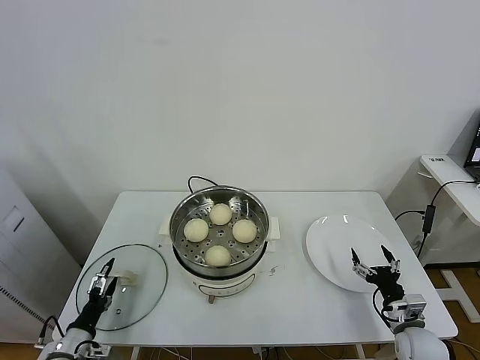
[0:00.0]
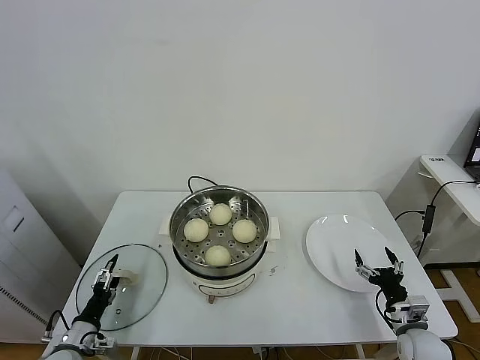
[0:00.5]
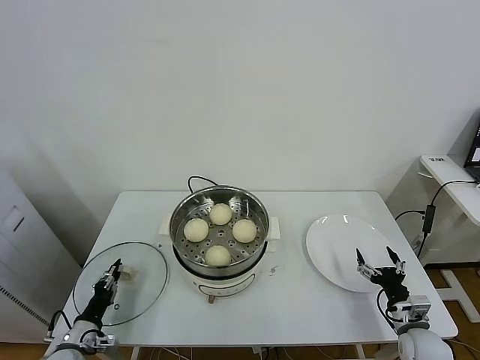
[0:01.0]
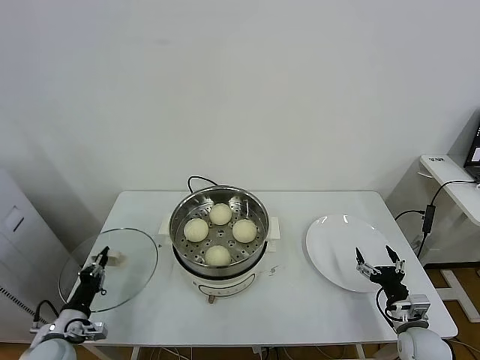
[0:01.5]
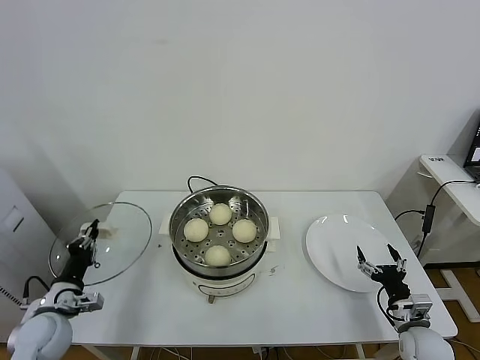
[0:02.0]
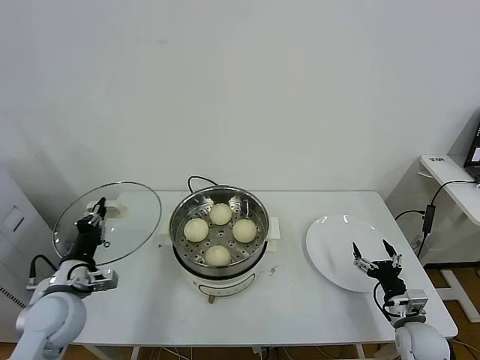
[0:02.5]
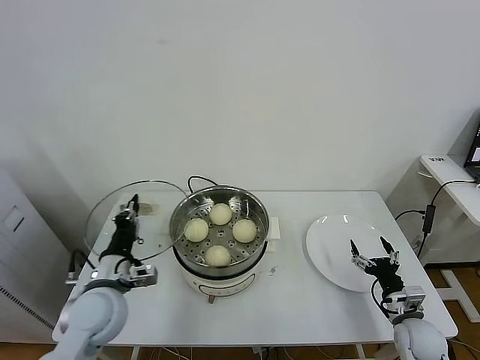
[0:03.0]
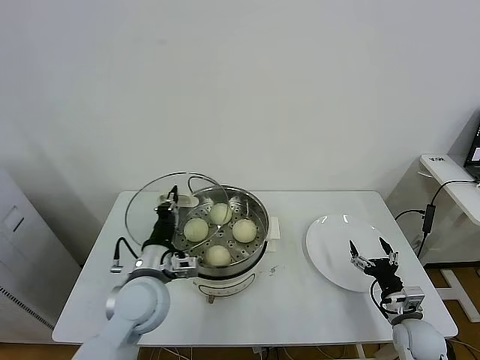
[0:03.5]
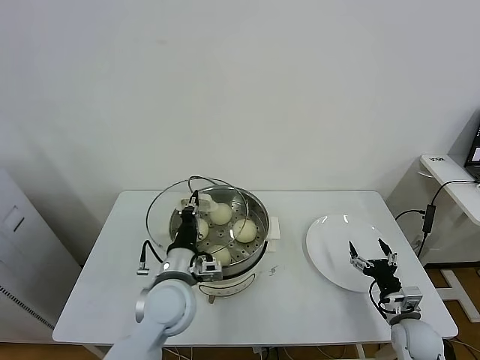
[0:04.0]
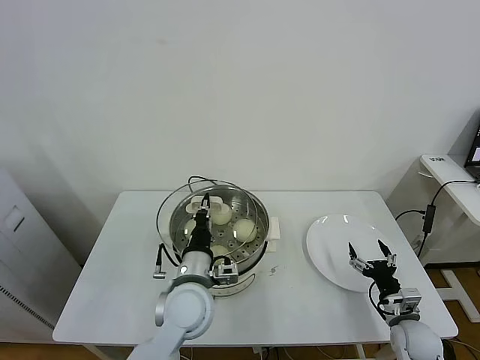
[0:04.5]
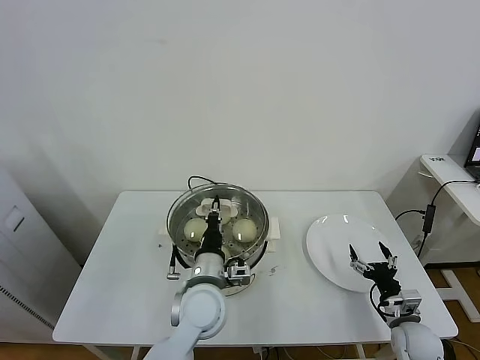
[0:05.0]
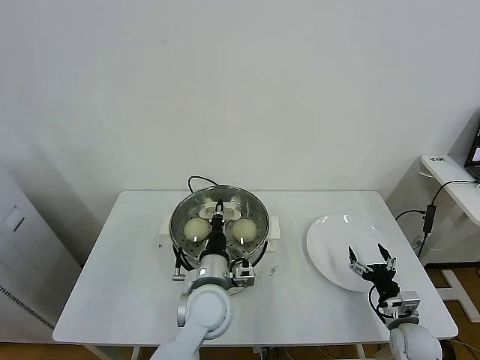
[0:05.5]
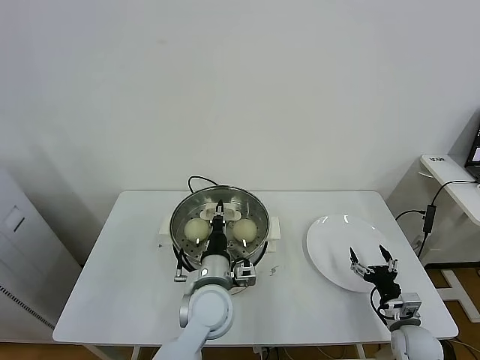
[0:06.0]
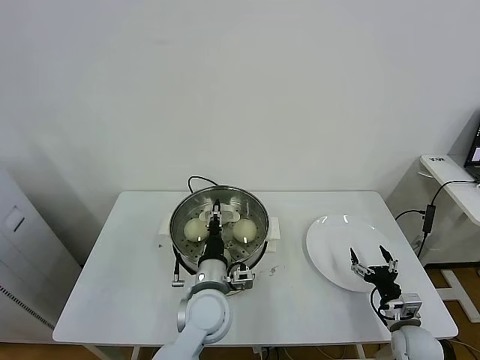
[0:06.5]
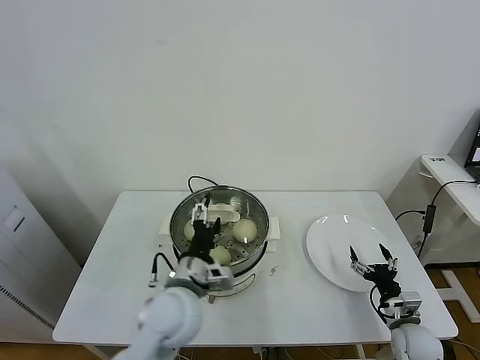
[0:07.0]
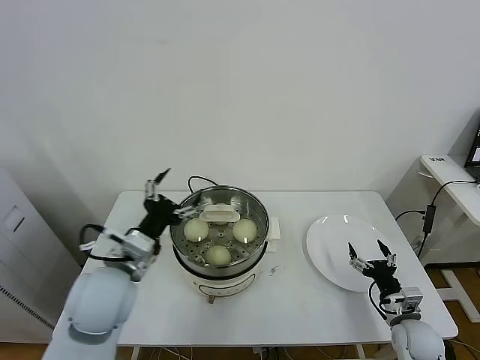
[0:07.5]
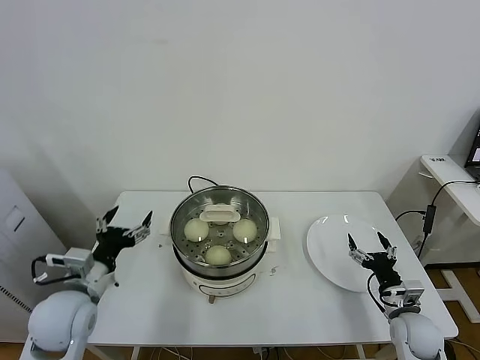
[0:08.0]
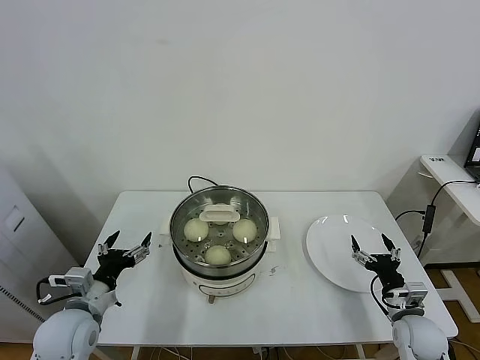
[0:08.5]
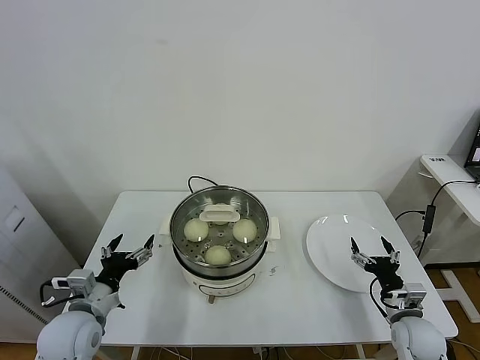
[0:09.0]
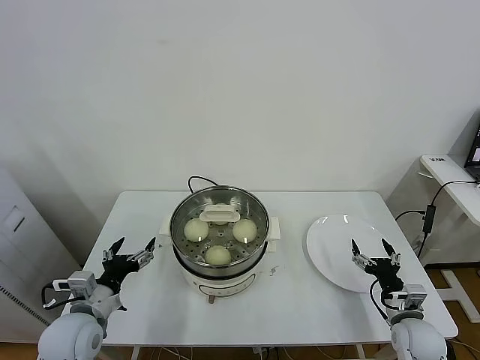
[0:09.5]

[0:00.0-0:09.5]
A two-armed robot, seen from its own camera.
Task of the whole recording: take steamed baozi put them in steamer.
Step, 0:01.5 to 0:07.0: Place the pot lid on the steamer with left gripper.
0:00.0 to 0:02.0: The left gripper heads upward and forward, covering roughly 10 cm, and closes its fingers.
0:02.0 to 0:04.0: The left gripper travels to the right by some 25 cm.
0:04.0 to 0:05.5: The left gripper is displaced to the right by about 5 cm.
0:05.5 to 0:07.5: The left gripper heads to the left and upward, covering approximately 20 cm, and opens its fingers.
0:07.5 to 0:09.5: The left gripper is displaced downward and to the left by roughly 15 cm.

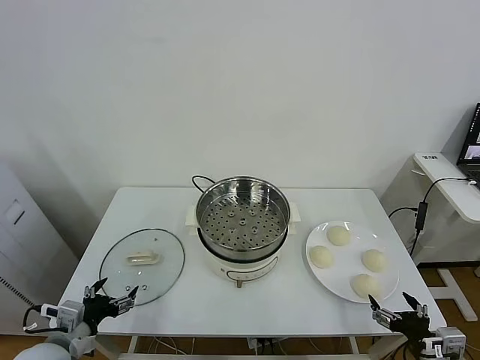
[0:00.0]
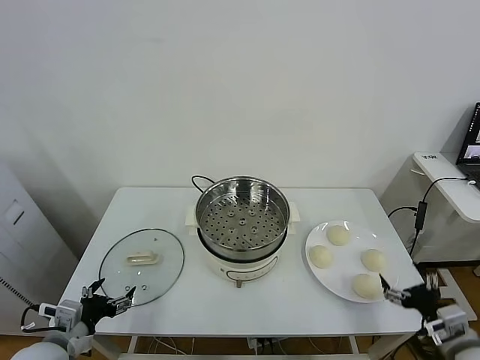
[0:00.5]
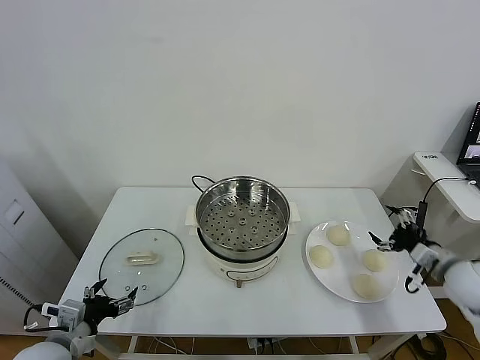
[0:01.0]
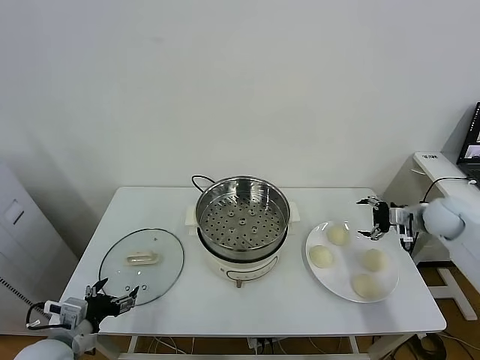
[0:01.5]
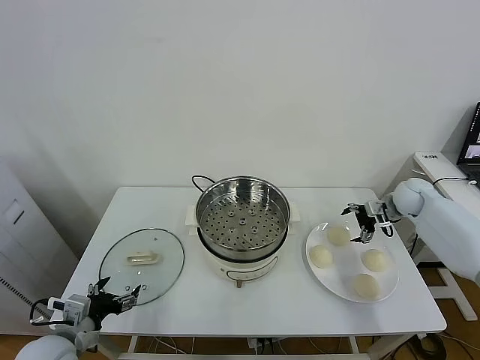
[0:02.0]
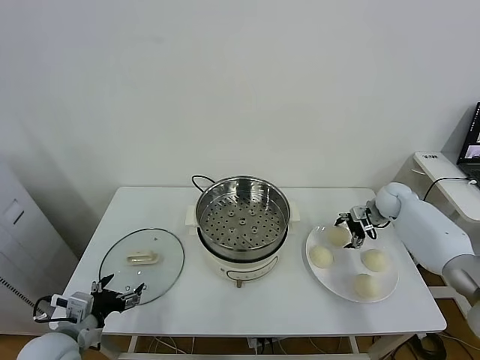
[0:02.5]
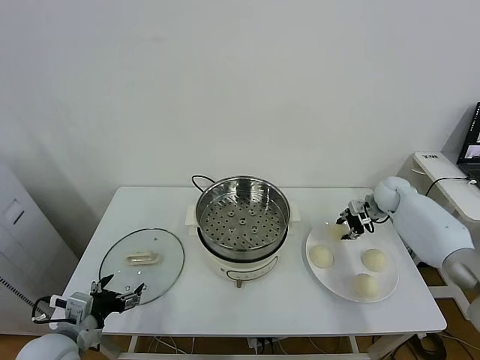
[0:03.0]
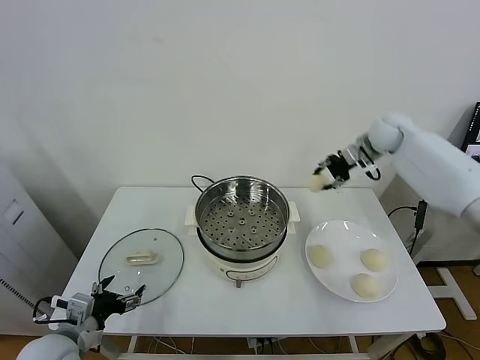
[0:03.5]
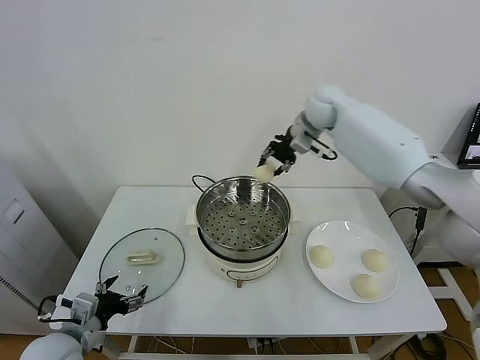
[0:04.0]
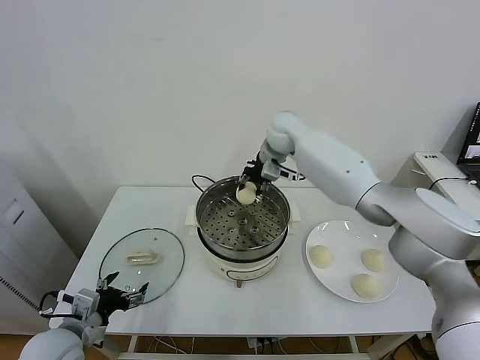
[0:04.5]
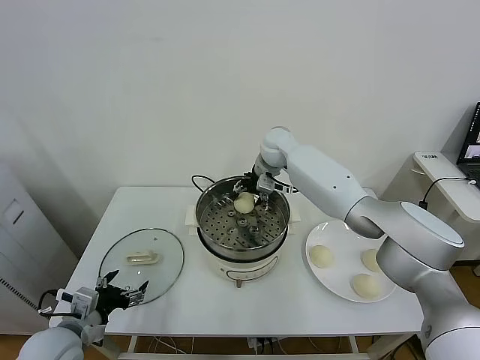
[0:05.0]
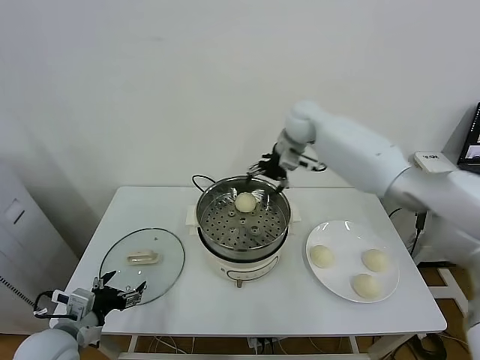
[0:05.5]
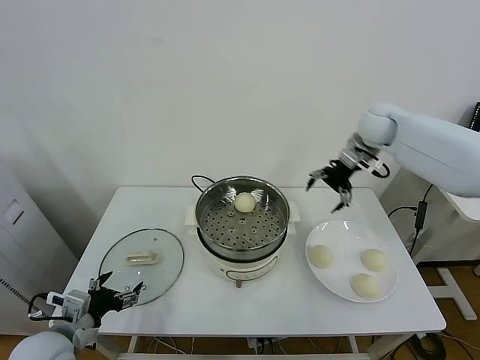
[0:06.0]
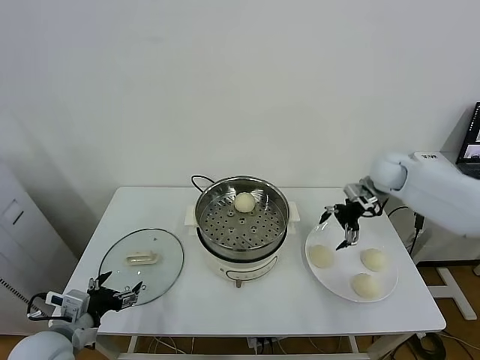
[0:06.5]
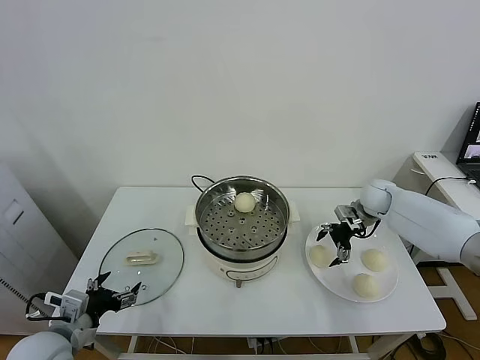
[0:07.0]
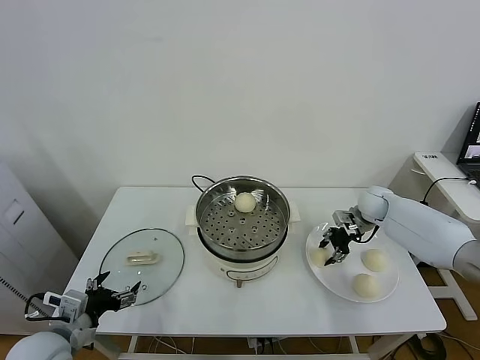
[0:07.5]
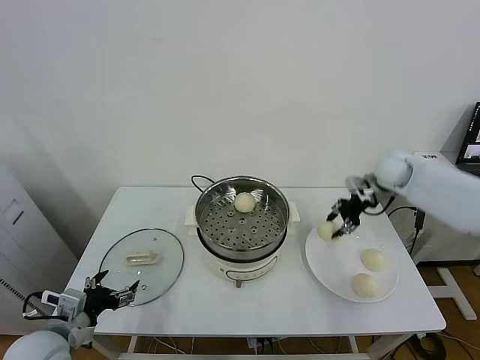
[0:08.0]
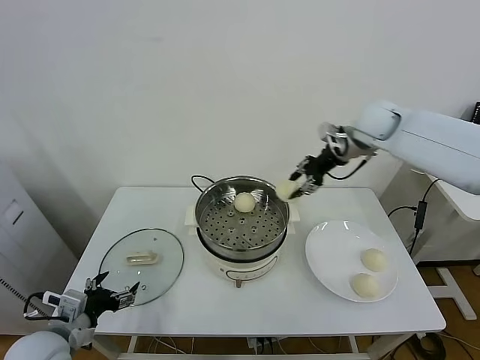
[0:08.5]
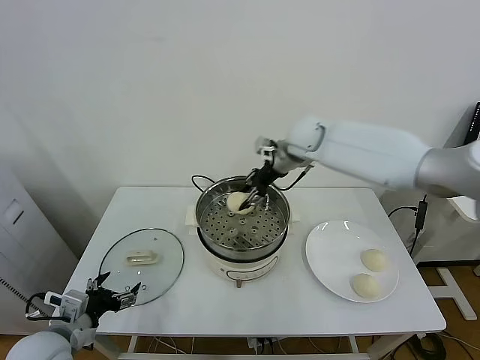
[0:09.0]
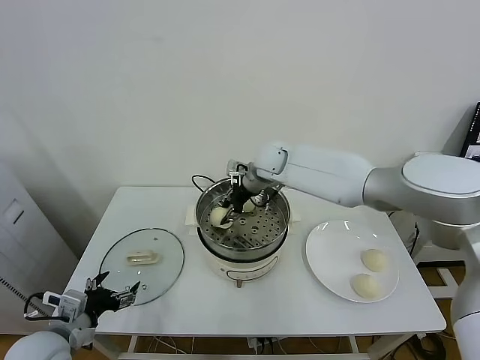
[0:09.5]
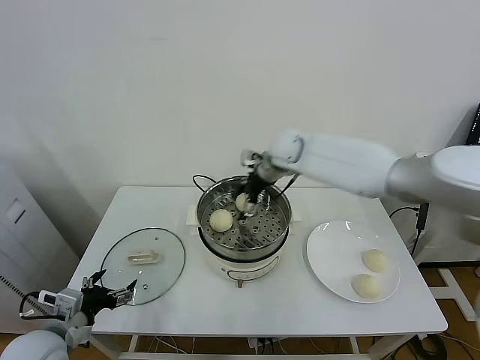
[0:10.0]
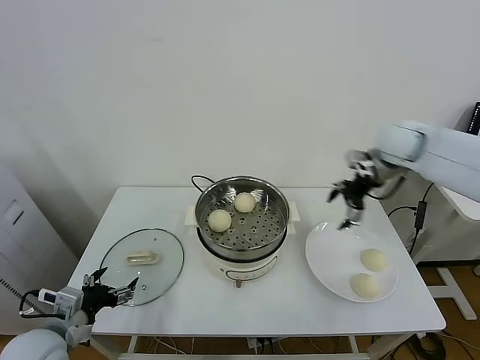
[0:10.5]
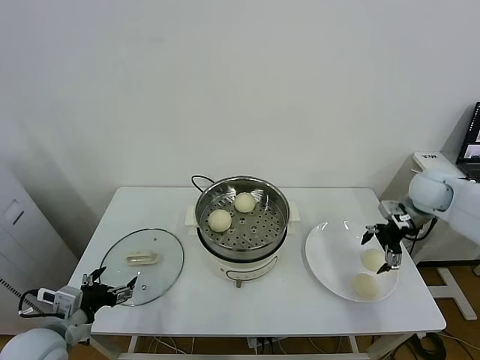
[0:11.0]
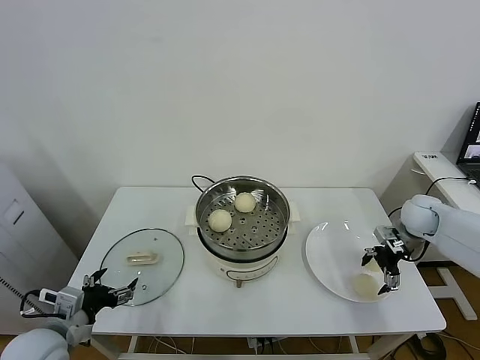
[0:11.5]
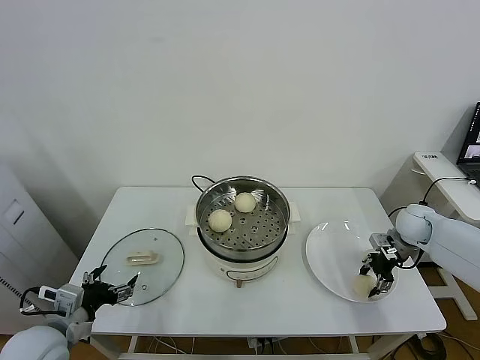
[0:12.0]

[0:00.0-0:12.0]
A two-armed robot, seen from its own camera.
Task of the whole recording: take steamed baozi put them in steamer.
Step, 0:00.0 to 0:02.5: Grasp the baozi in the plate with right gripper.
Step, 0:03.0 to 0:05.0: Place the baozi on the steamer with right gripper.
Step, 0:05.5 to 0:07.5: Grasp the baozi in the plate with right gripper.
Step, 0:08.0 to 0:10.0: Place the baozi on the steamer with right gripper.
Step, 0:10.5 to 0:11.5: Grasp the baozi in the plate with right gripper.
0:02.0 to 0:04.0: The right gripper is displaced to the left and upward by approximately 35 cm, and closes its fingers.
0:04.0 to 0:06.0: The right gripper is displaced to the right by approximately 15 cm, and opens.
0:06.0 to 0:08.0: The right gripper travels downward and back again, roughly 20 cm each way, and closes.
0:08.0 to 0:10.0: The right gripper heads to the left, covering some 20 cm, and opens up.
0:10.0 to 0:12.0: The right gripper goes some 35 cm to the right and downward, and closes its fingers.

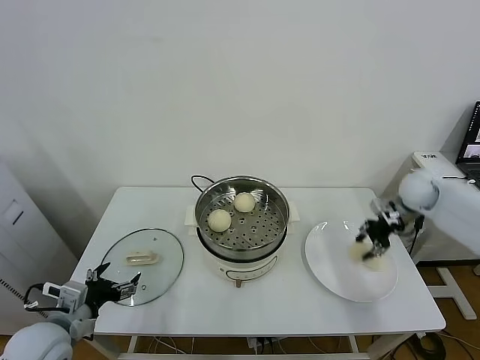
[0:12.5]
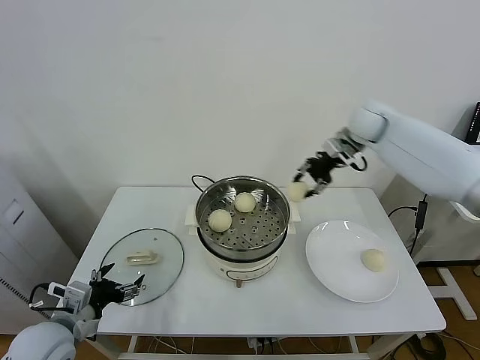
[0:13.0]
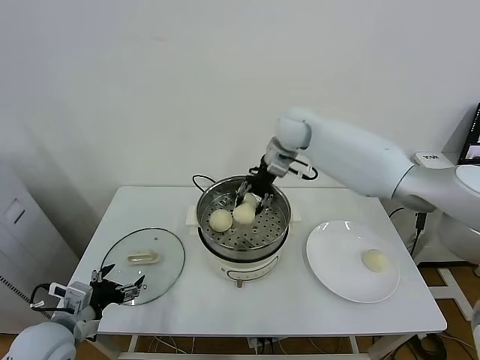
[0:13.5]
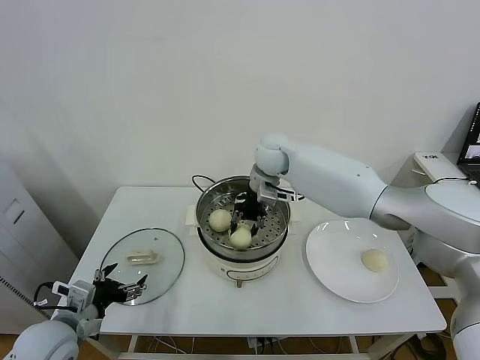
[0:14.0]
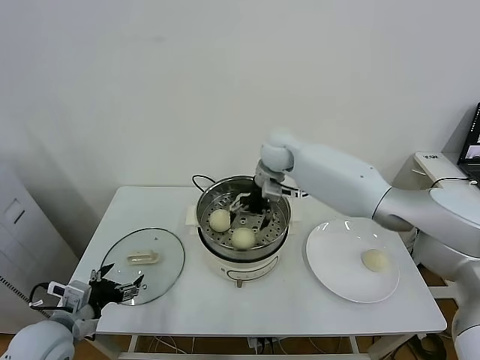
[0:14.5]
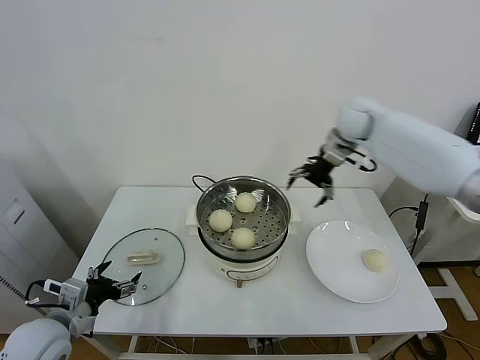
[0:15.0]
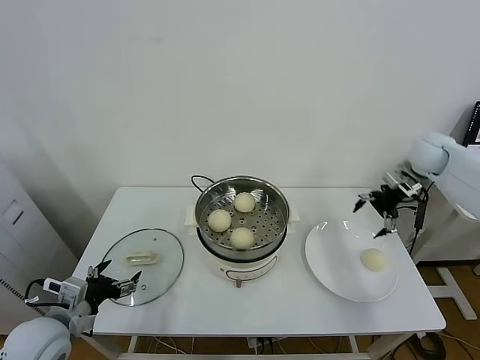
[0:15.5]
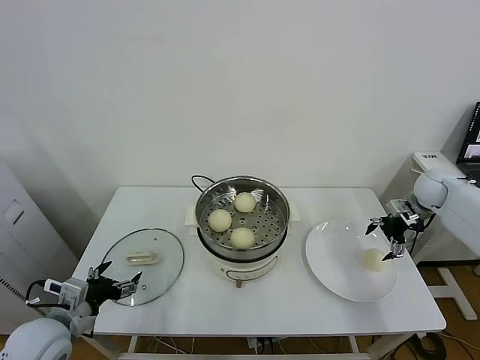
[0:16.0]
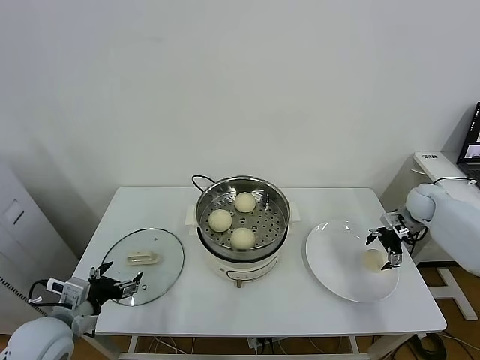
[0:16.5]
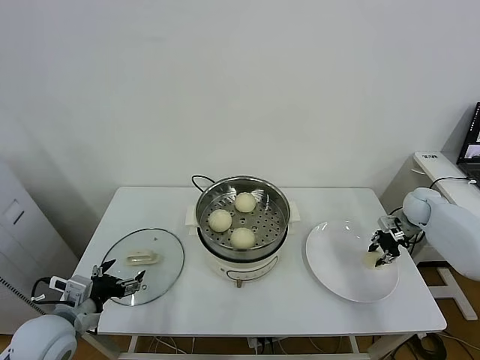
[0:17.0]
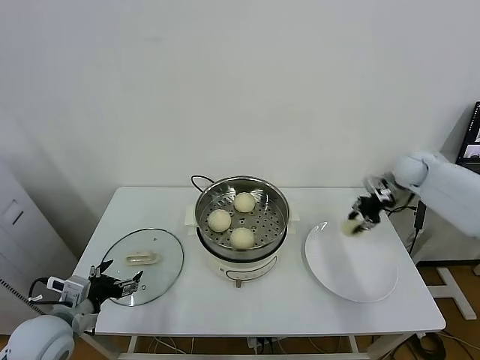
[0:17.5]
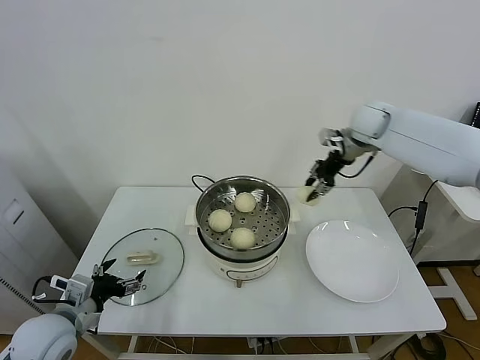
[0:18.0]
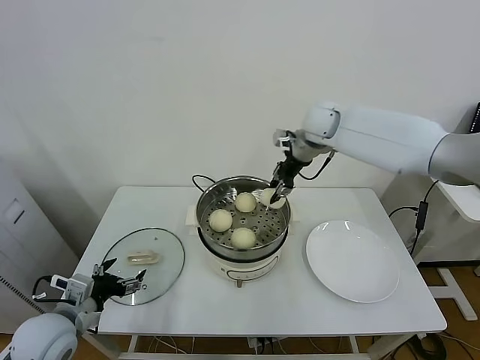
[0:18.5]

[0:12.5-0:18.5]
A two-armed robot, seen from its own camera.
Task of the whole recording: take steamed baozi put them in steamer.
Step, 0:12.5 to 0:14.0: Place the baozi on the steamer with right gripper.
Step, 0:15.0 to 0:16.5: Grasp the baozi in the plate with right gripper.
0:12.5 to 0:14.5: The right gripper moves to the left, about 30 cm, and opens its fingers.
0:14.5 to 0:16.5: The right gripper heads to the right, covering about 40 cm.
0:16.5 to 0:18.5: The right gripper travels to the left and upward by roughly 35 cm, and closes.
